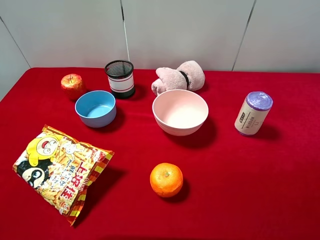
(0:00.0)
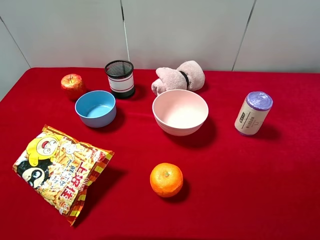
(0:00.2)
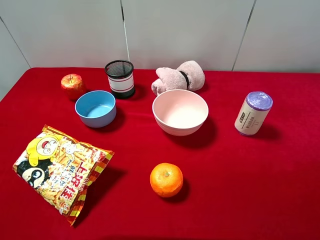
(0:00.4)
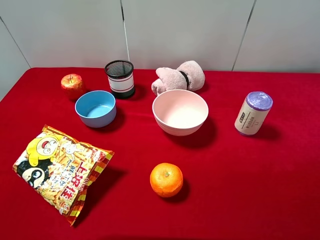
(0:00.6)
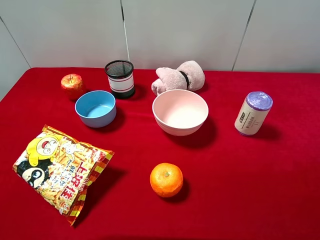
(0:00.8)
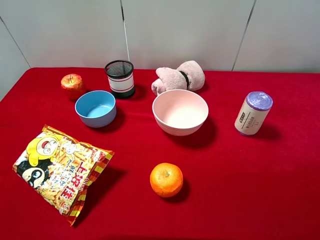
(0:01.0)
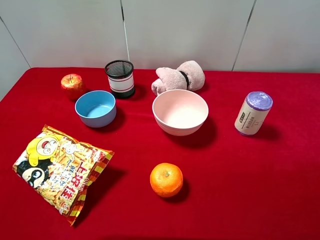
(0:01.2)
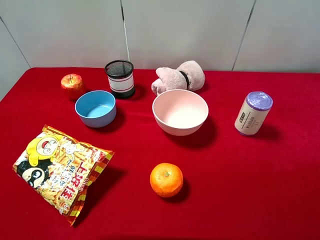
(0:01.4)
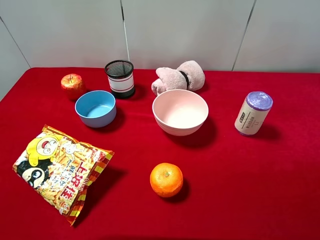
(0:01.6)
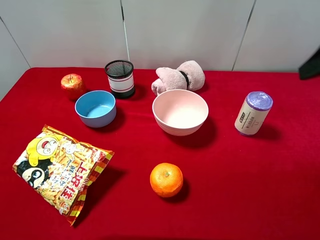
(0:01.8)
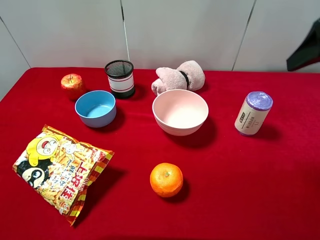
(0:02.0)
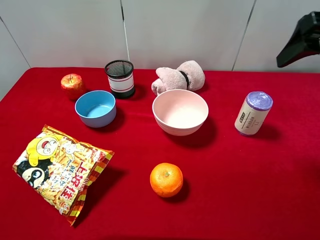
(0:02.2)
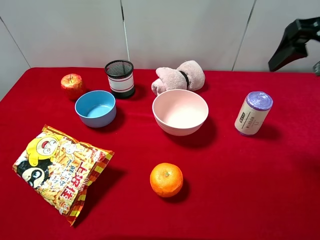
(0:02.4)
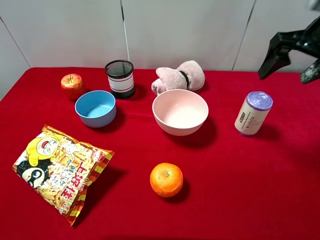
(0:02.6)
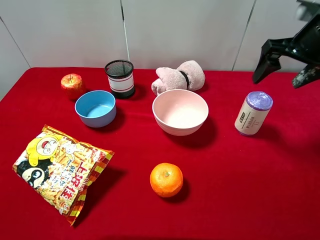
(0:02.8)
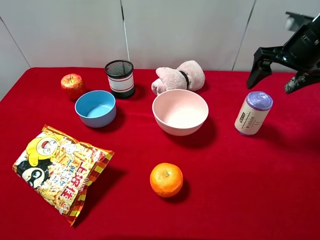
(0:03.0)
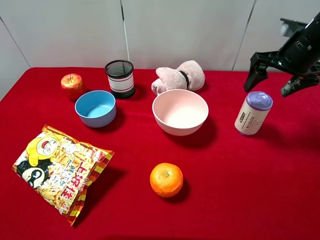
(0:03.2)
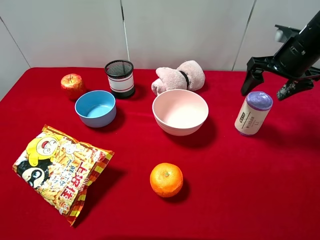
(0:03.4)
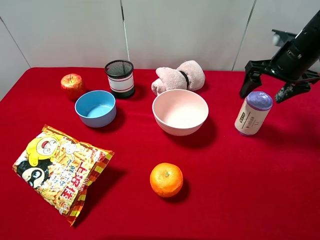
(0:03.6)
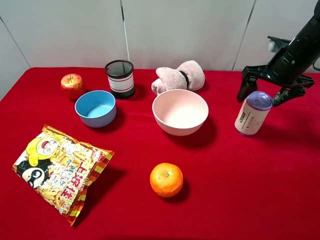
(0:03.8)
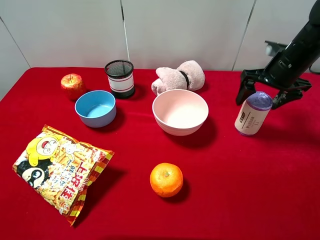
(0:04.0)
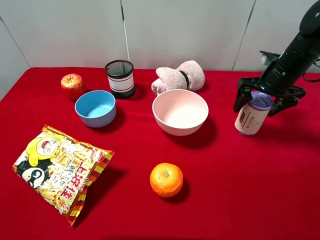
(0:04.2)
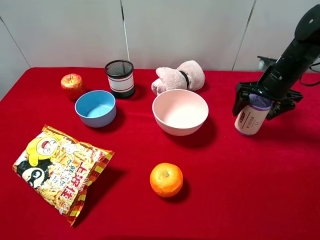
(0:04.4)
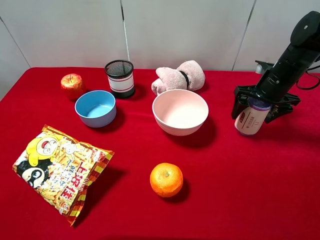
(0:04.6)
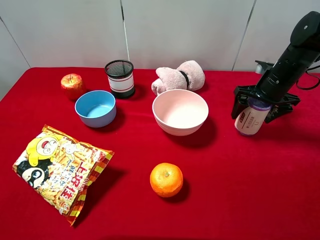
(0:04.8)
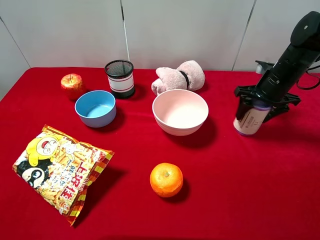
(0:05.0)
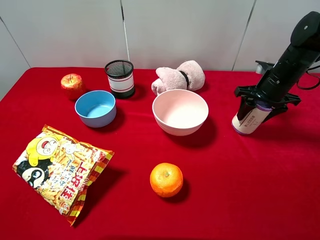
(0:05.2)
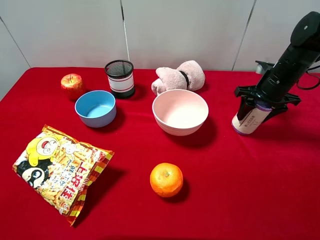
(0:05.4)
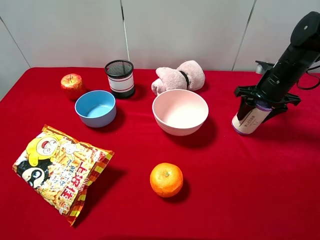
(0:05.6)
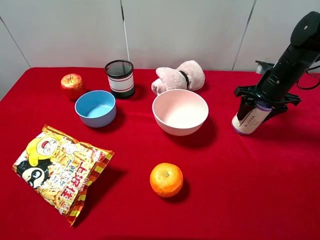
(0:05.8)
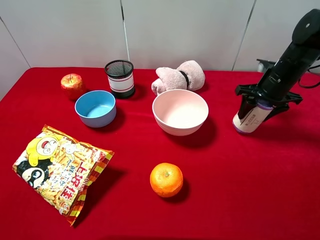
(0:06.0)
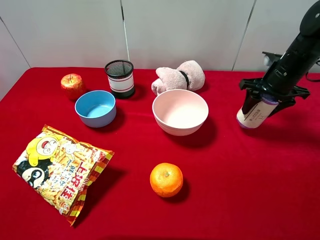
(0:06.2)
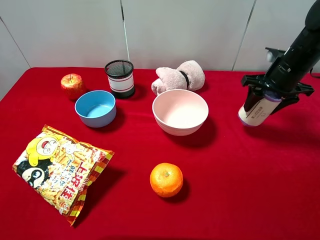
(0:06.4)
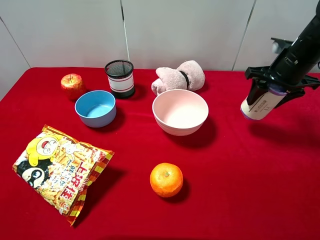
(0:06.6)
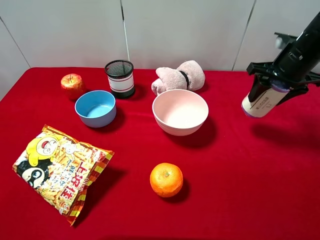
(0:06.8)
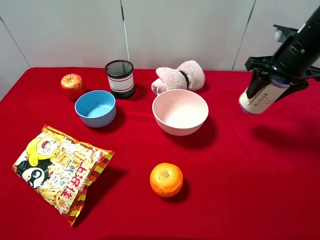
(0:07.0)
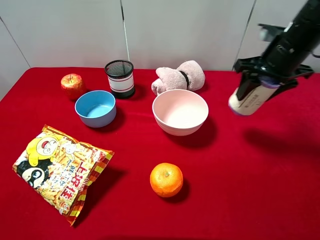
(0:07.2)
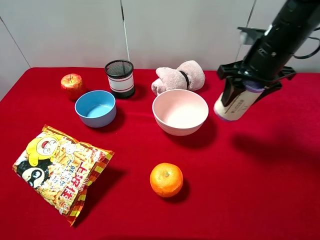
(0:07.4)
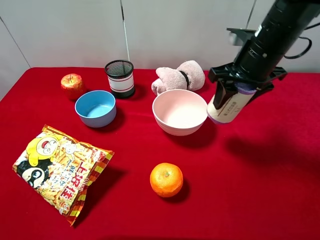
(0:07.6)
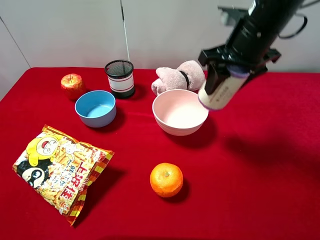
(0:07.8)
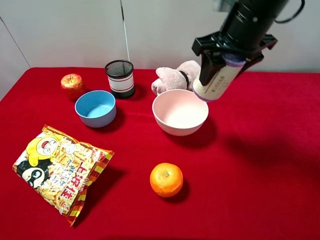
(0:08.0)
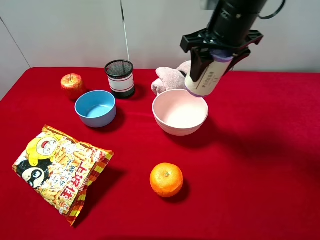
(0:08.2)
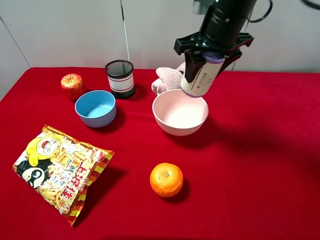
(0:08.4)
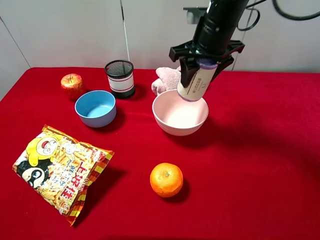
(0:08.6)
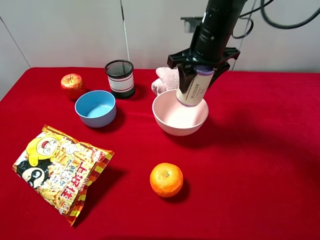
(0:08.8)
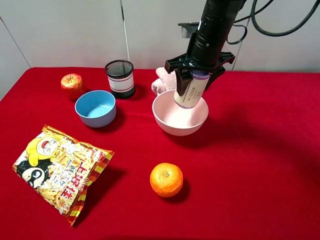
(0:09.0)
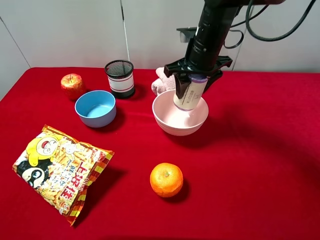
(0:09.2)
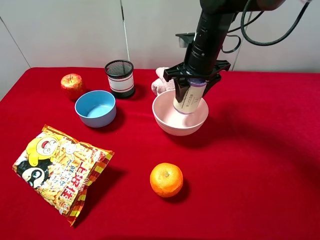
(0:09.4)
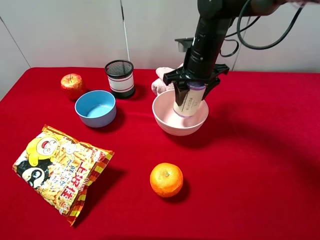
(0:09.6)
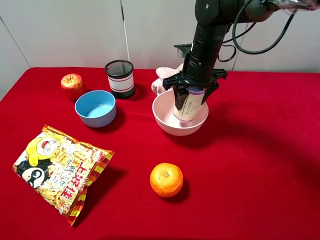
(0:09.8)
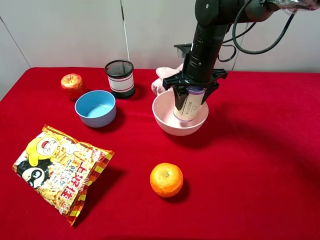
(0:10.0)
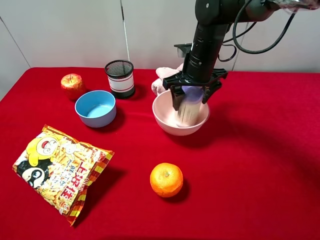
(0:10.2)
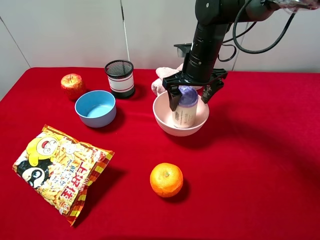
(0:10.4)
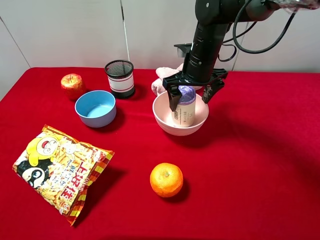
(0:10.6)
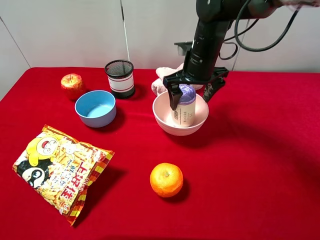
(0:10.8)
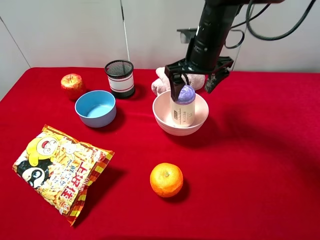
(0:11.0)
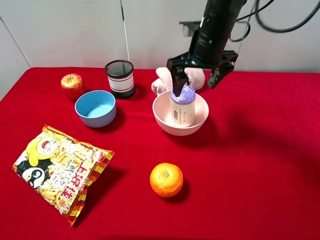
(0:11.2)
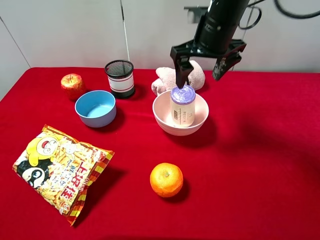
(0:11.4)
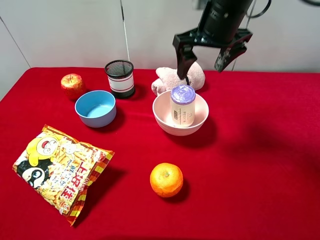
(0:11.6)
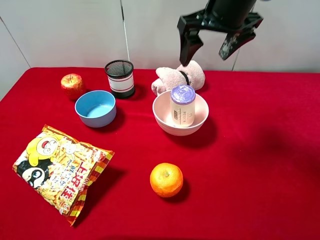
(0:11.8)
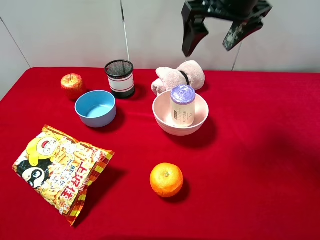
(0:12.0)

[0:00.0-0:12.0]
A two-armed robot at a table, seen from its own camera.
Task of the whole recording: pick up an item with a gripper and place it in a random container on the desktop.
0:01.6 to 0:03.0: The right gripper shifts roughly 20 cm forward and downward.
0:03.0 to 0:04.4: The right gripper shifts roughly 10 cm downward.
0:04.4 to 0:06.0: The right gripper closes.
0:06.0 to 0:07.6: The right gripper goes approximately 15 cm to the left, upward and backward.
0:07.6 to 0:09.0: The right gripper travels to the left and forward by approximately 10 cm.
0:09.0 to 0:10.4: The right gripper opens.
0:10.4 to 0:12.0: The right gripper is displaced upward by some 15 cm.

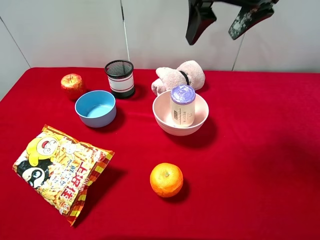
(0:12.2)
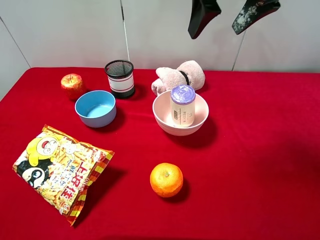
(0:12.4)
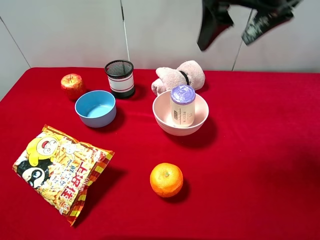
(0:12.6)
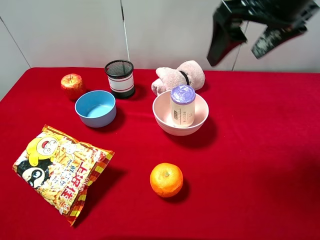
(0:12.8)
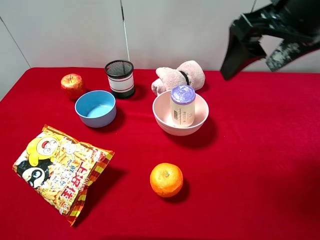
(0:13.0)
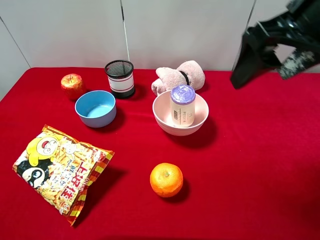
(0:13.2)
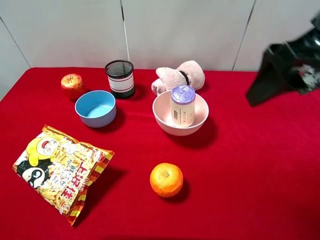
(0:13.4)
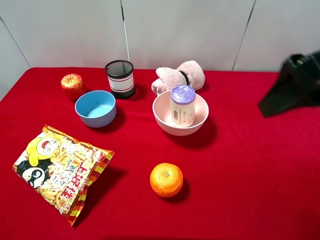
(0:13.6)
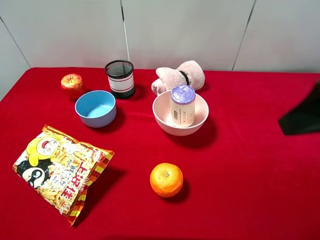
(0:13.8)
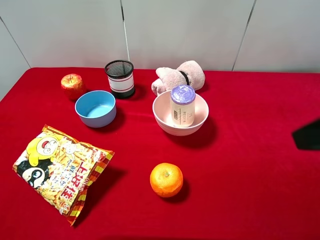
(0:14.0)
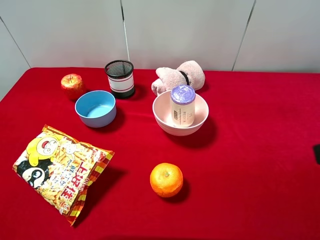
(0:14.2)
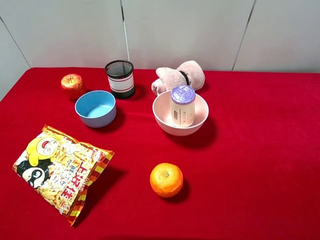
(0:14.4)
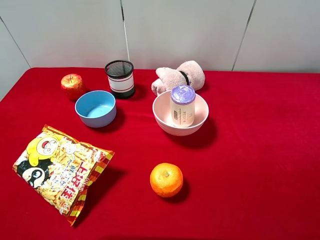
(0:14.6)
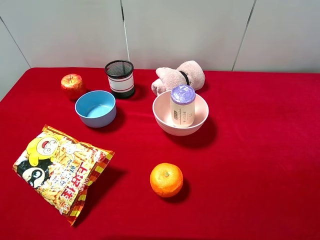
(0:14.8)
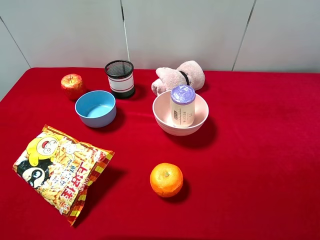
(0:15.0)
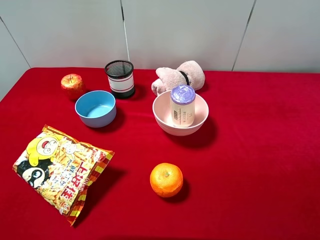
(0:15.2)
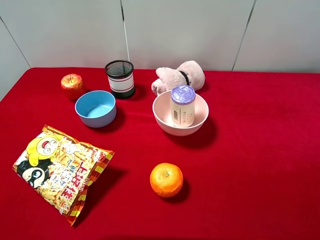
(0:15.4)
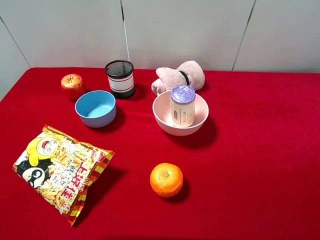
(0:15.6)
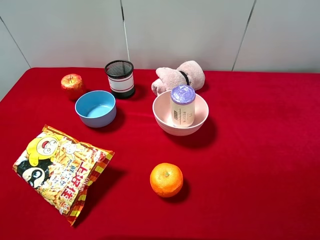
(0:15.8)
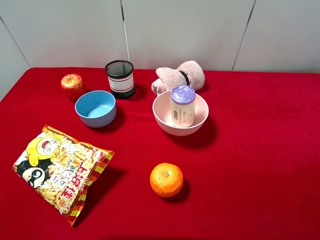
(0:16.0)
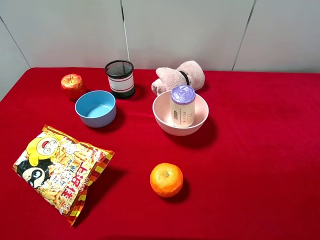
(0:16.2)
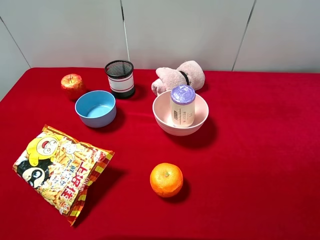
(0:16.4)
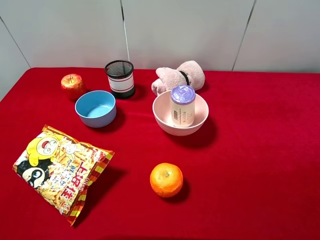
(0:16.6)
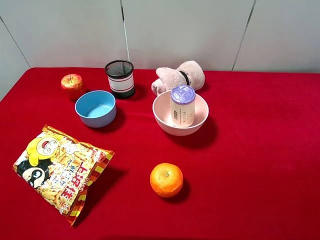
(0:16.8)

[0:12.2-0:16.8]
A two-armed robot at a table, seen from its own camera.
Task of the whole recording: pick up an item with a gripper and place it in a random container on the desktop.
0:12.2 to 0:13.8: The right gripper goes approximately 20 cm backward and to the right.
0:13.8 to 0:15.2: The right gripper shifts approximately 15 cm backward, to the right and downward.
0:15.2 to 0:16.8: Neither gripper changes place.
